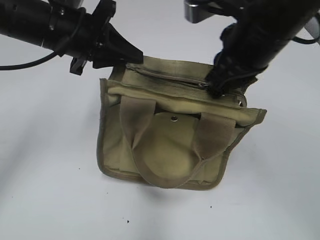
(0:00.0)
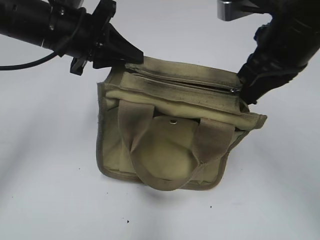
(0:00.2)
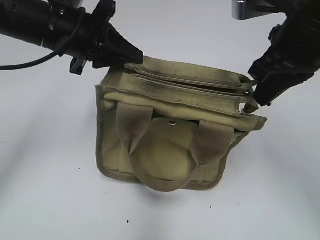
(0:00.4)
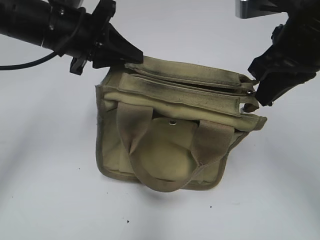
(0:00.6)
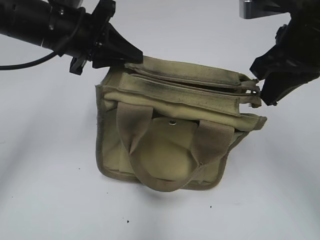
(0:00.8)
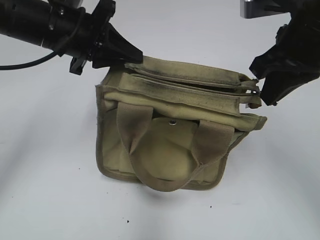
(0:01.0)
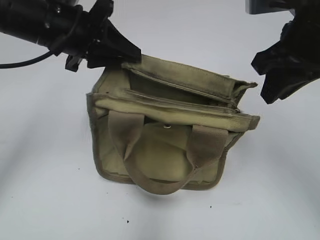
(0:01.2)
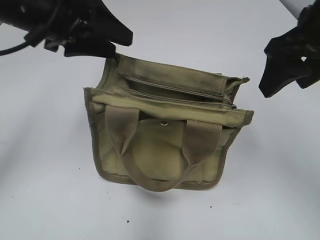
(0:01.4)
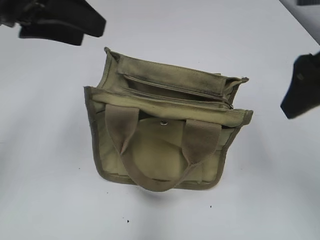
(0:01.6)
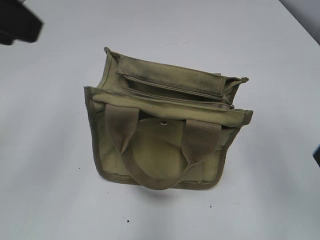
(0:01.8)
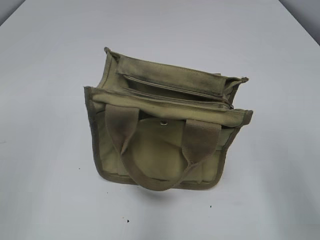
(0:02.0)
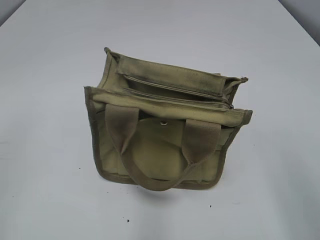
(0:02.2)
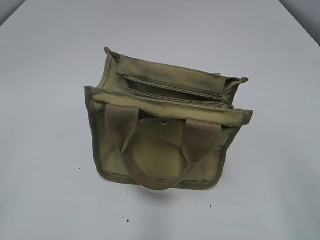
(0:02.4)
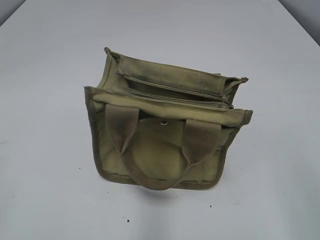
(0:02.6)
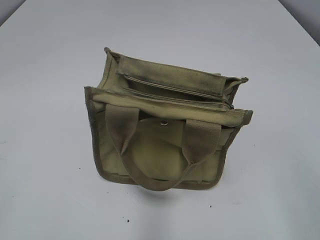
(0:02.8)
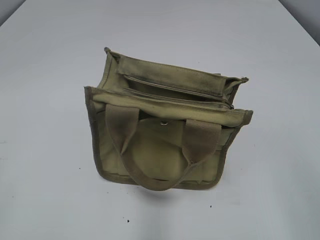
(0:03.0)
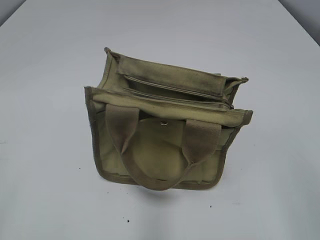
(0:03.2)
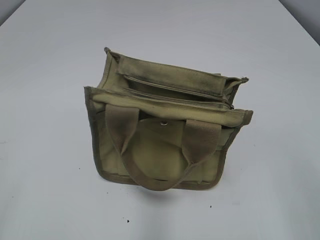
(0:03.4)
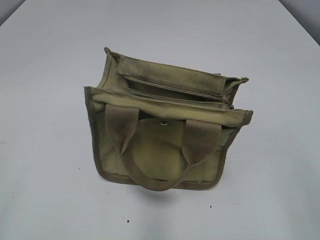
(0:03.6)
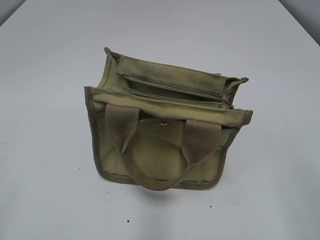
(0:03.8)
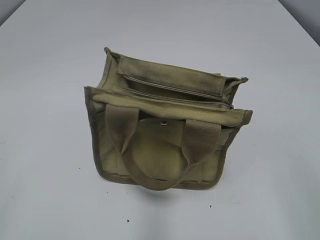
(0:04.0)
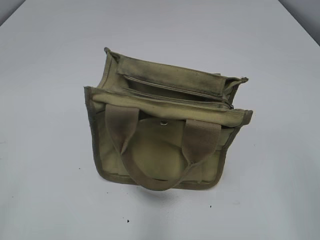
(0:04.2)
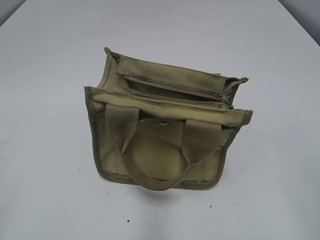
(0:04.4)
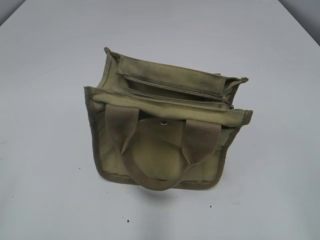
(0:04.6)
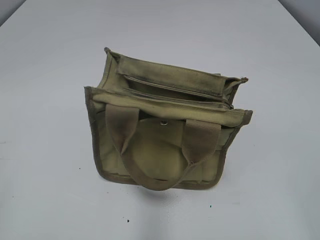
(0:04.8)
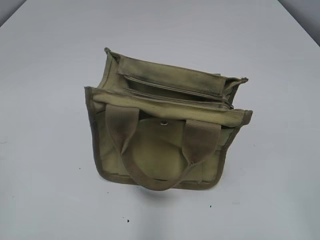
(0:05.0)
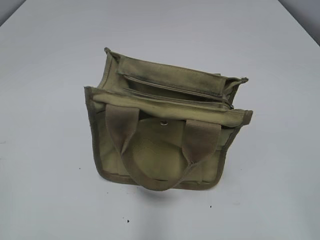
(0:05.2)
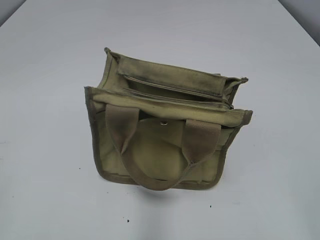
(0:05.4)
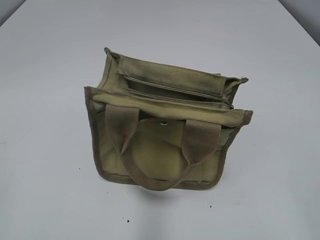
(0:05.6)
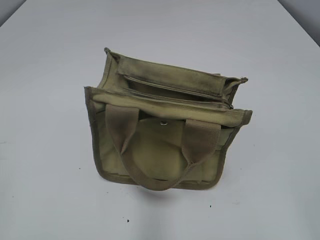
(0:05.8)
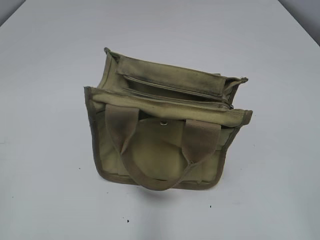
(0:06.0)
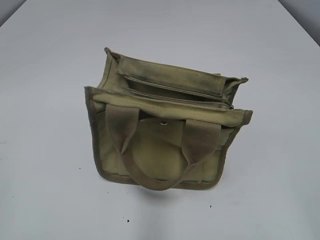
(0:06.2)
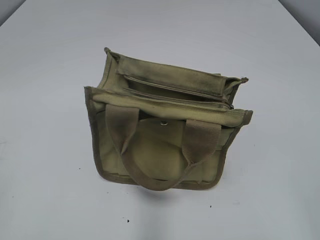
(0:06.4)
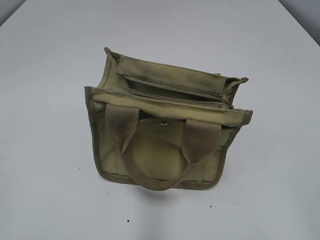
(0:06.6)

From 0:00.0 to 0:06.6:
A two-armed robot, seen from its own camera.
Step, from 0:01.2 to 0:01.4: Hold the bag with your left hand.
From 0:00.0 to 0:01.6: The right gripper travels backward and to the right by some 10 cm, and opens. Meanwhile the left gripper shifts roughly 10 cm upward and backward, and opens its fingers.
From 0:01.6 to 0:03.2: The left gripper is displaced backward and to the left by some 30 cm, while the right gripper is displaced backward by roughly 20 cm.
From 0:05.0 to 0:06.6: Neither gripper changes place.
